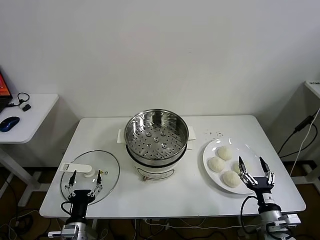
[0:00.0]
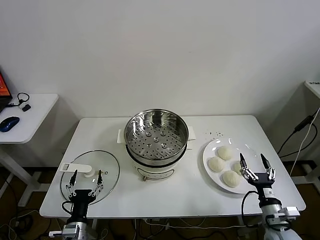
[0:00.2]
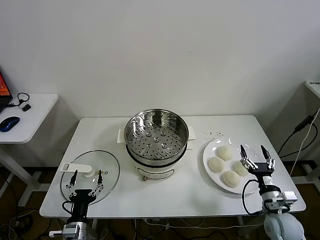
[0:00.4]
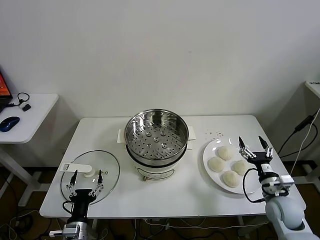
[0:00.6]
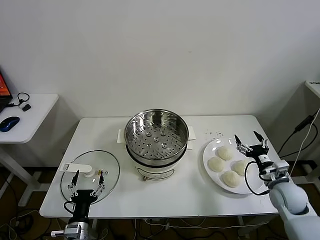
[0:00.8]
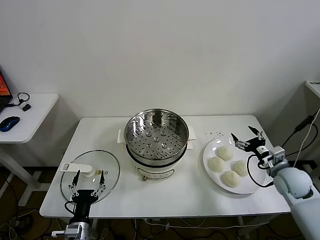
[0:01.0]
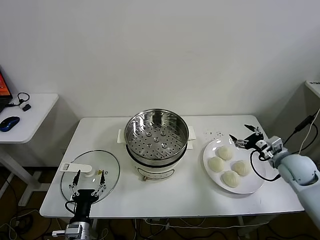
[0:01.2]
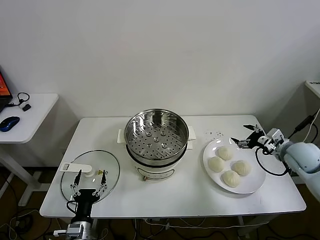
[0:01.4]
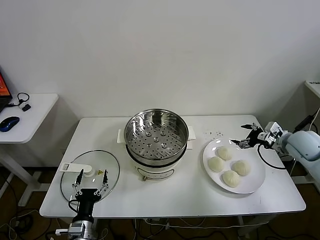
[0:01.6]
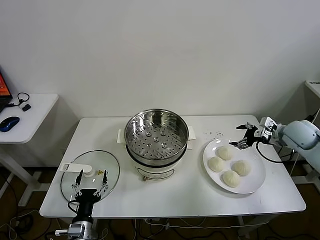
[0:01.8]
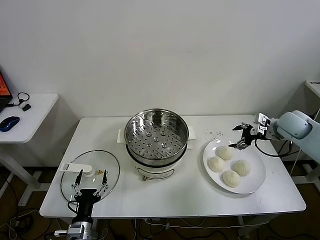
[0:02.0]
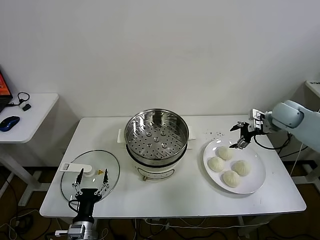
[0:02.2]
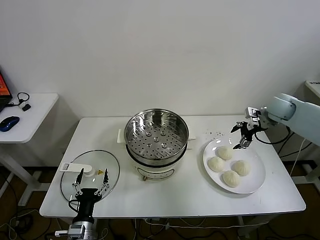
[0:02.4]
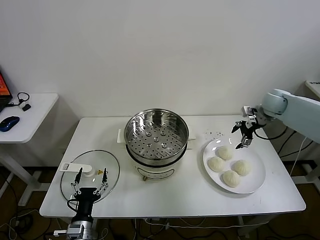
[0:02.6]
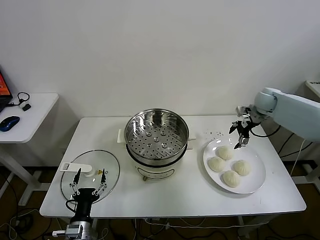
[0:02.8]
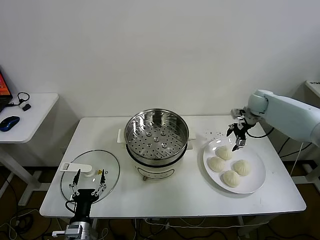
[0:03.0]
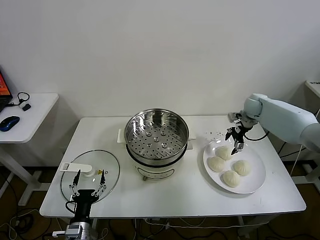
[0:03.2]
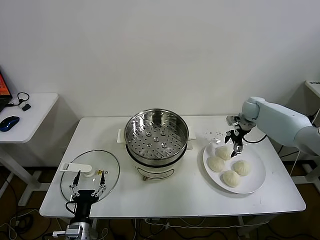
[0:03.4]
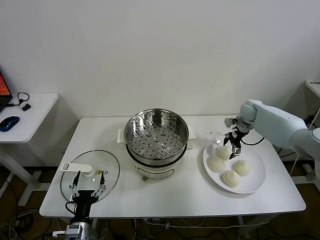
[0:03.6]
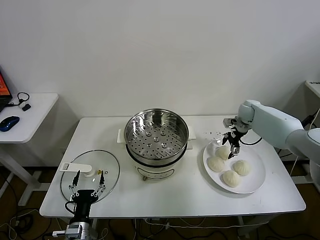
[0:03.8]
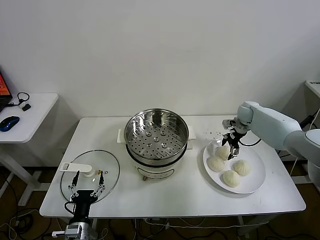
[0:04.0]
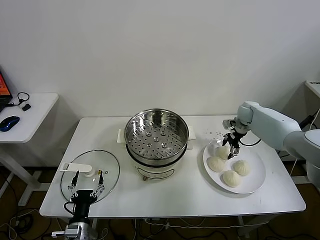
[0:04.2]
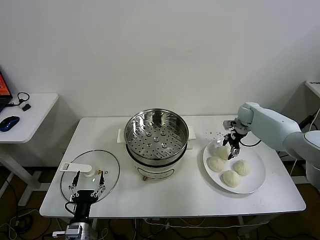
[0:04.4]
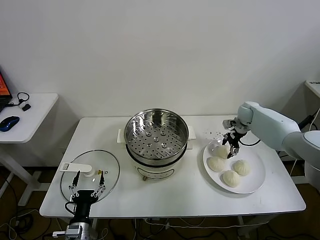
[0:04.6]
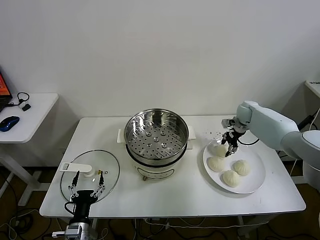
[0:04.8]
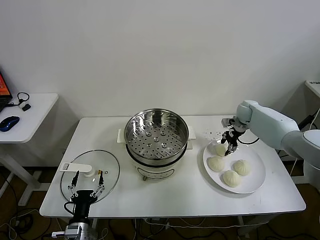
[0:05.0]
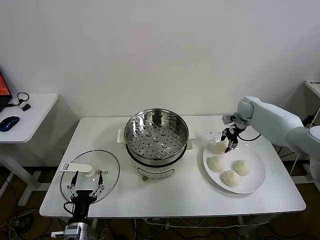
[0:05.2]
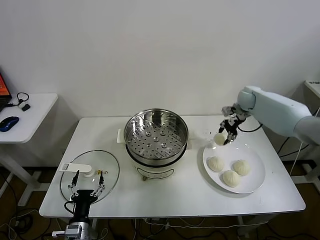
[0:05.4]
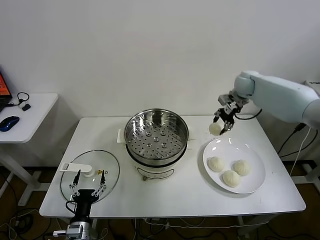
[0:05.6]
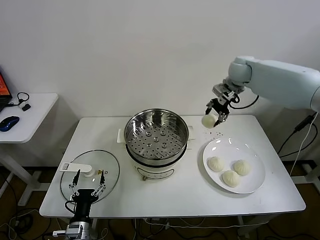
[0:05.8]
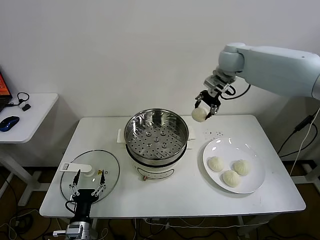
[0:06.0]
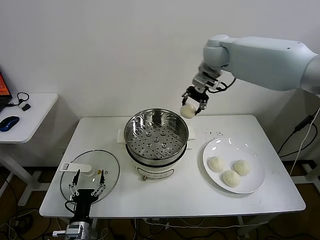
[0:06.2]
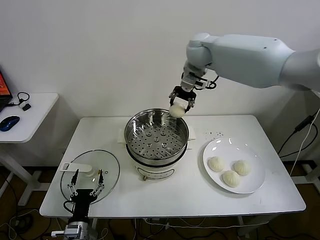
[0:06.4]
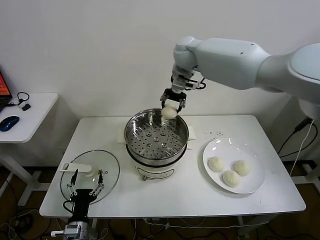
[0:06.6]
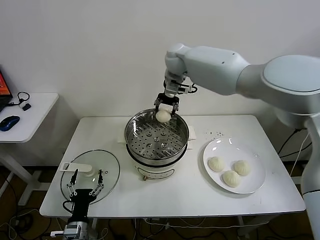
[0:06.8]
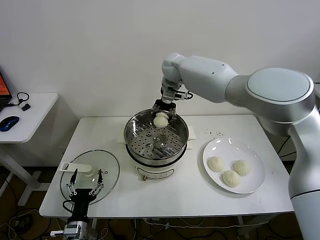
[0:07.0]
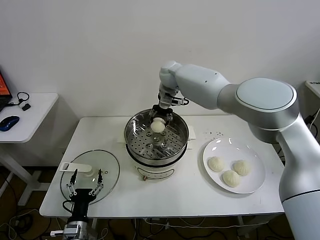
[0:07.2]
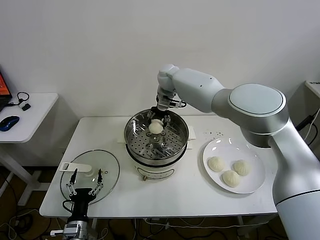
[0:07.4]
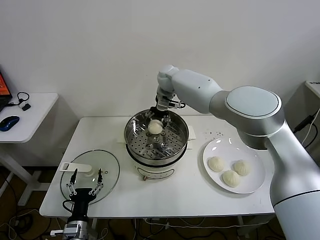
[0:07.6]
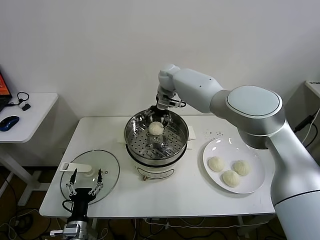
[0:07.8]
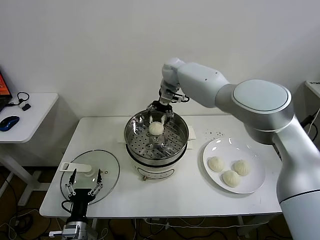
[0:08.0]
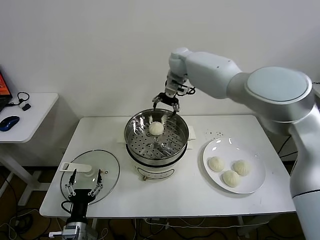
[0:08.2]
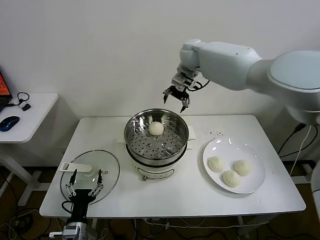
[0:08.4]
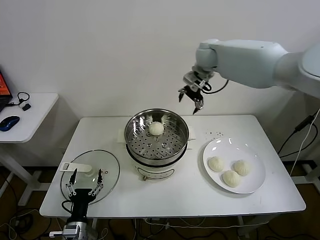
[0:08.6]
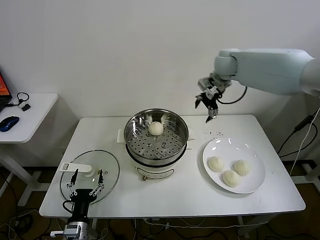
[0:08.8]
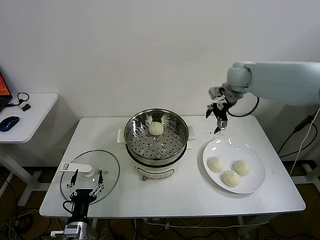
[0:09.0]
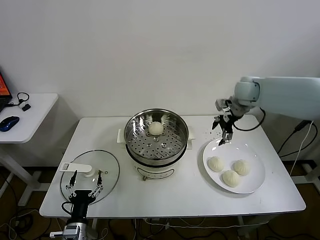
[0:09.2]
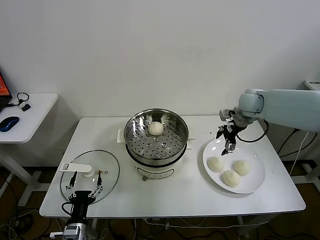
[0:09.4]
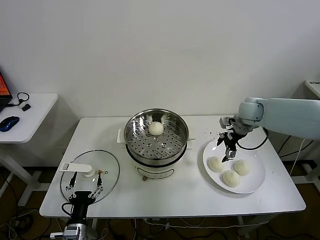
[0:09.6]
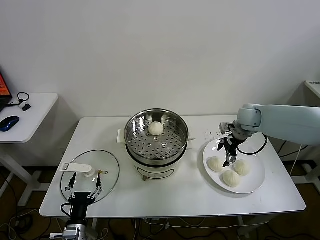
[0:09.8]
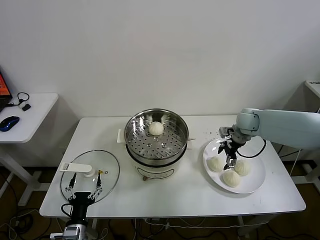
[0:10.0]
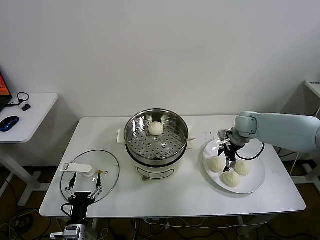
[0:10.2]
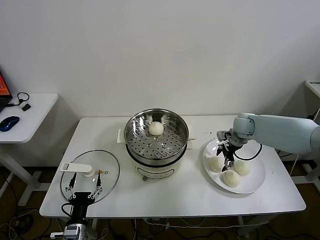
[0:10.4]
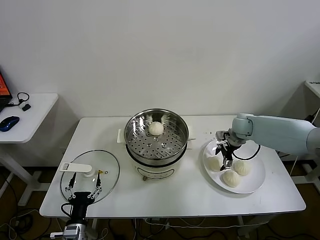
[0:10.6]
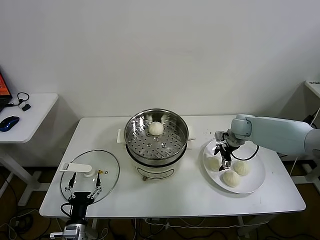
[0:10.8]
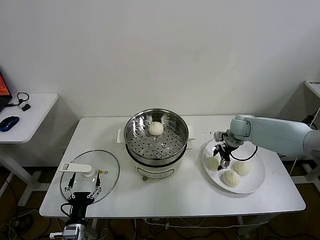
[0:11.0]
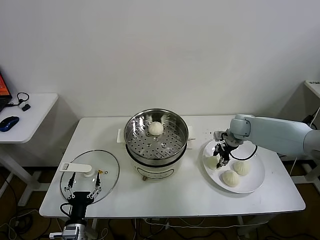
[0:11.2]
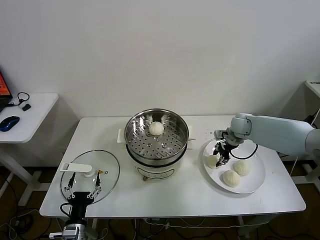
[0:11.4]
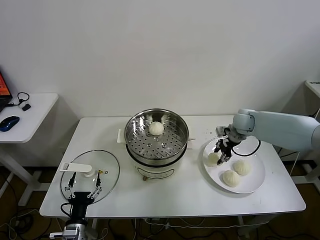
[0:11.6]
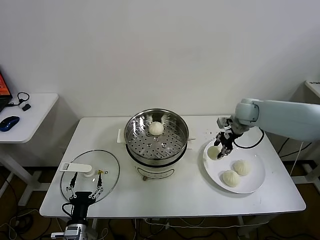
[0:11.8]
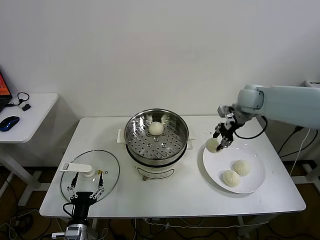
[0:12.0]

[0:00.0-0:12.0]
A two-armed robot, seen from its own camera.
Task of the whole recording: take steamed baozi put them in steamer.
Step, 0:00.0 to 0:04.6: Grasp the baozi in the plate with right gripper.
Step, 0:04.8 to 0:07.6: Place the baozi on the steamer with right gripper.
Step, 0:07.8 to 0:11.0: Grasp the baozi in the plate with right gripper.
0:01.6 to 0:03.0: The right gripper heads forward, covering about 20 cm.
0:03.0 to 0:04.4: The right gripper is displaced downward by some 5 cm.
0:04.4 to 0:06.0: The right gripper heads upward and to the left, covering some 30 cm, and closes its fingers.
0:06.0 to 0:07.6: The right gripper travels to the left and downward by about 20 cm, and opens.
0:07.6 to 0:09.0: The right gripper shifts some 25 cm to the right.
0:09.0 to 0:10.4: The right gripper moves downward, some 15 cm.
0:10.4 to 0:12.0: The right gripper moves upward, about 15 cm, and closes up.

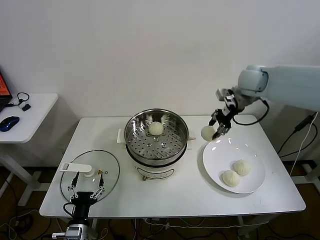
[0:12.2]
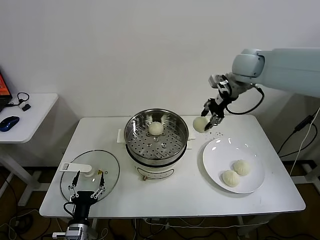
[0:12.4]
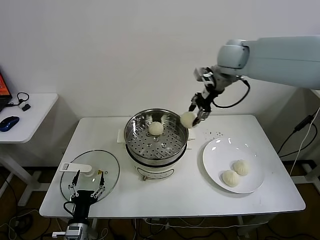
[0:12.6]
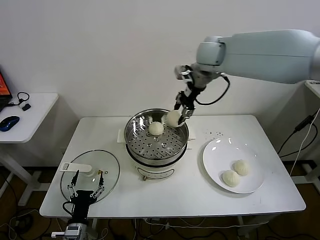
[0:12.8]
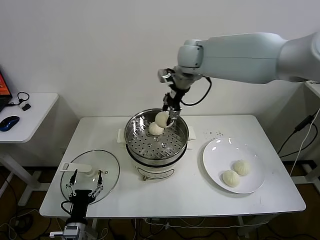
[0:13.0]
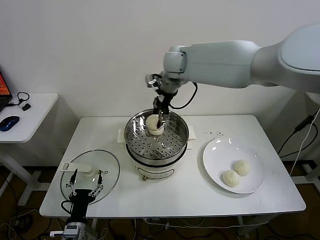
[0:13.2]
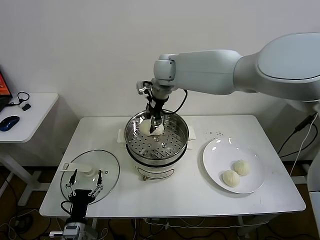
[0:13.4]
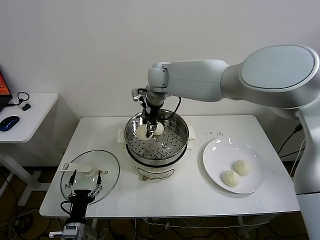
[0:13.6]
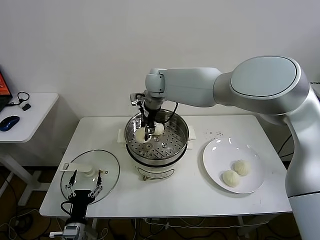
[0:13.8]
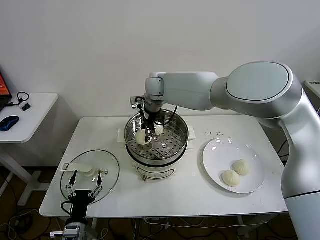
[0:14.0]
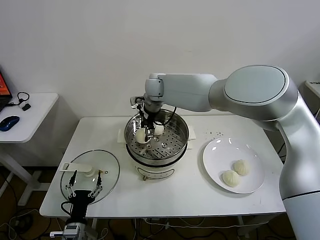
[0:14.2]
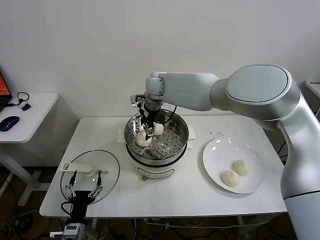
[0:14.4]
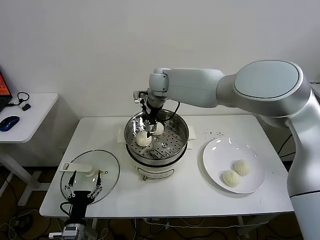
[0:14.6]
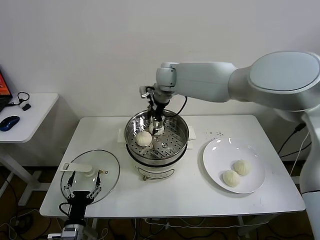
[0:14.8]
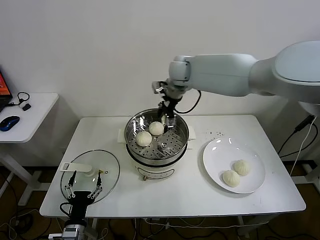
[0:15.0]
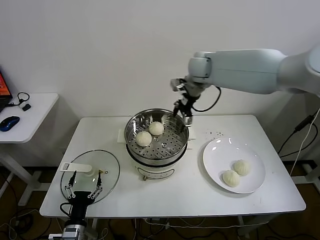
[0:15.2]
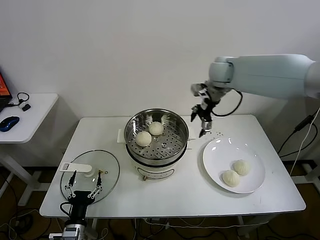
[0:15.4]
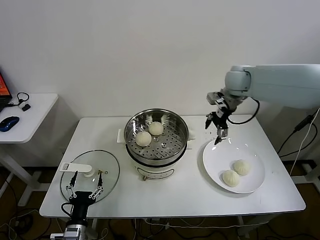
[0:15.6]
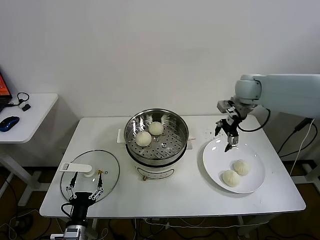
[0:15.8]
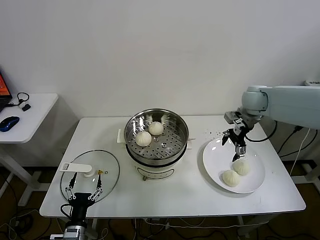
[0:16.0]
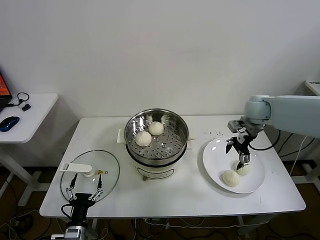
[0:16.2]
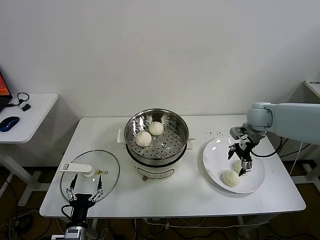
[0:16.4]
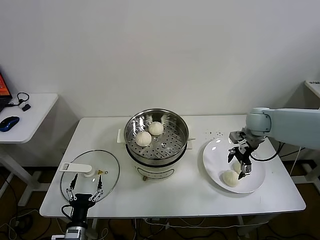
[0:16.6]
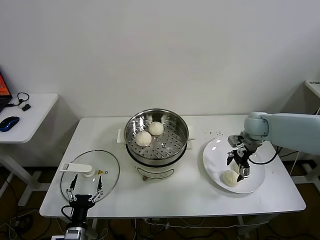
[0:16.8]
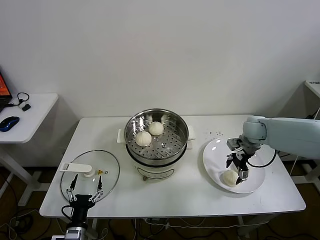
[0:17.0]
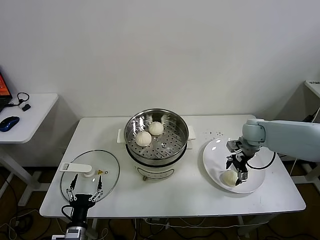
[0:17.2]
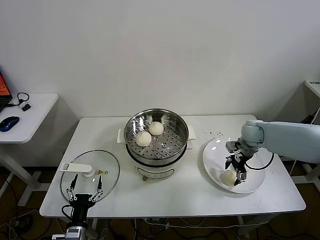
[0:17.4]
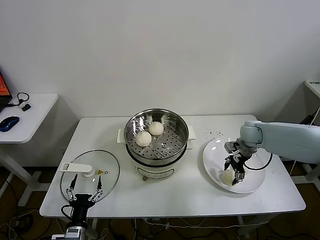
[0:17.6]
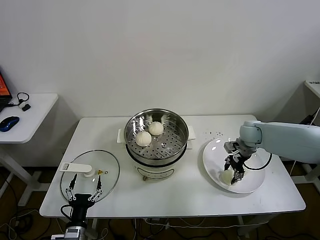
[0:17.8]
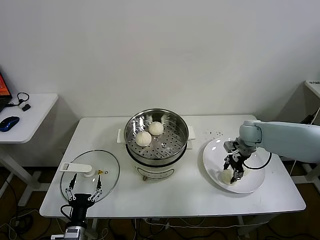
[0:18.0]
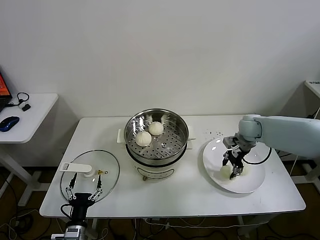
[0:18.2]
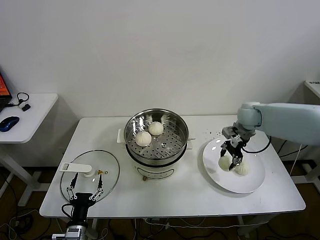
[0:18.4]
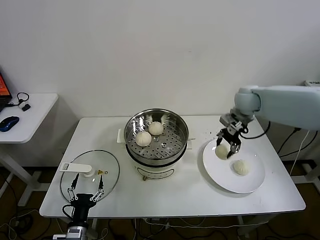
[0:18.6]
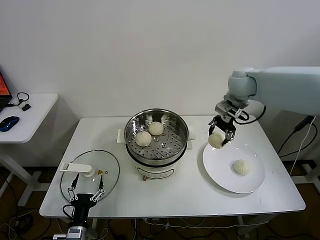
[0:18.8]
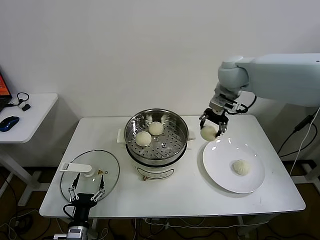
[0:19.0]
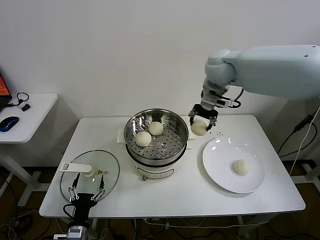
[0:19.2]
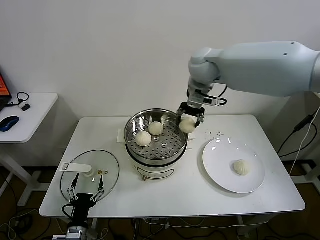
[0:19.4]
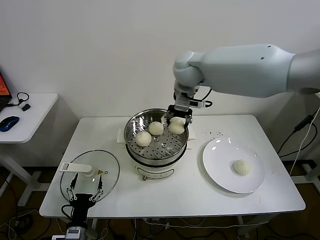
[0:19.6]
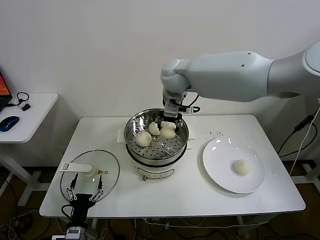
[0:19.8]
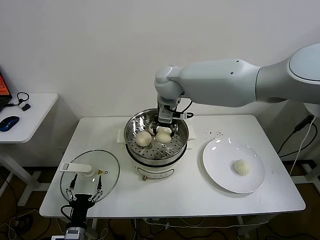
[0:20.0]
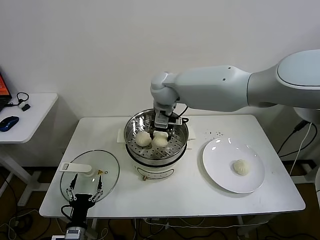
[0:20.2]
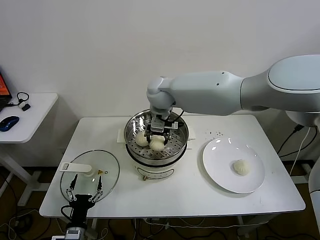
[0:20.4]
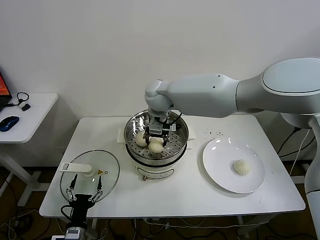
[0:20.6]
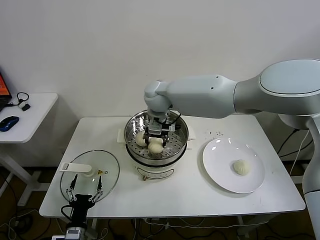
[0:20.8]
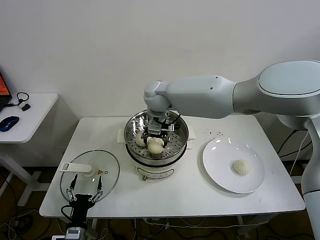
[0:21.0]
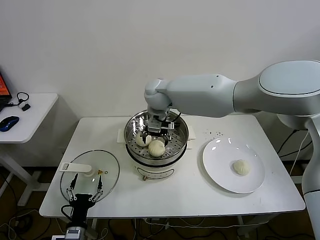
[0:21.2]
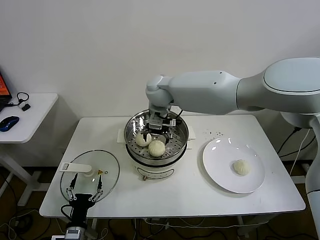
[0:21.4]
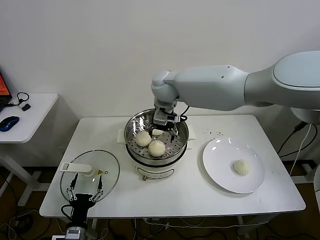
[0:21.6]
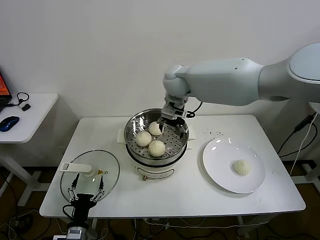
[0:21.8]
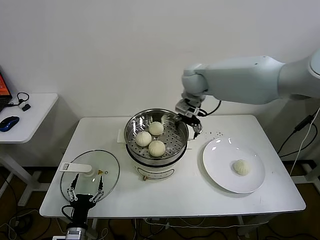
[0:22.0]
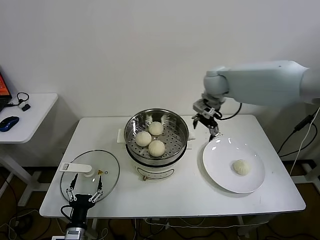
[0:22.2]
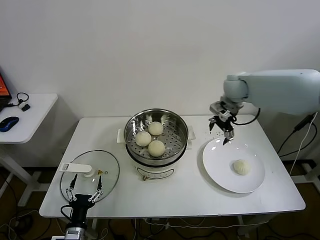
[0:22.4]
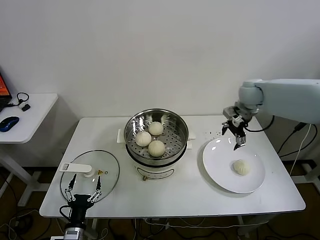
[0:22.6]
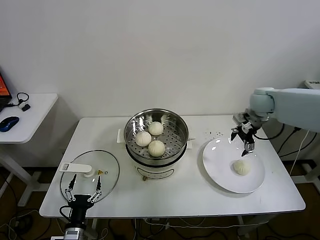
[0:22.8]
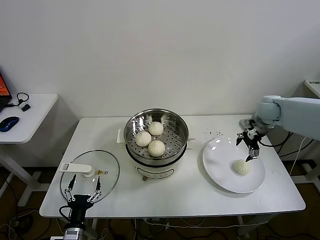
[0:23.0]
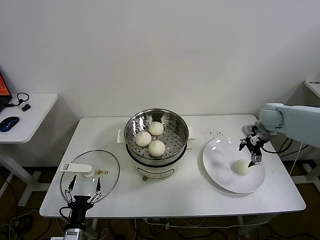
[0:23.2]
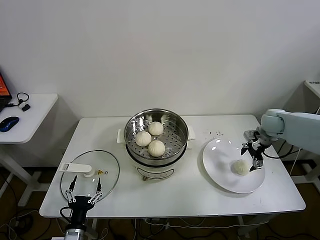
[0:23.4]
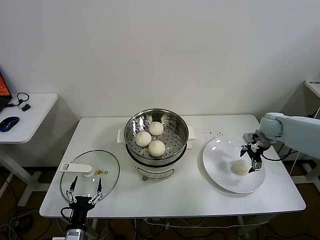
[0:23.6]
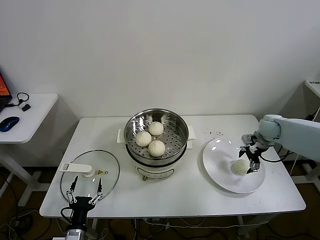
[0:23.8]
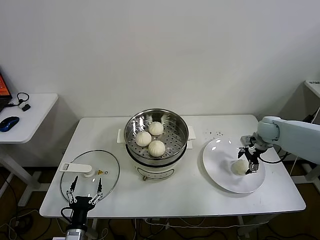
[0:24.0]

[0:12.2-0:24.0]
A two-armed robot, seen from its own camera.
Task of the whole recording: take steamed baozi put them in steamer.
Step, 0:12.2 to 0:14.4: Place the baozi on the steamer with right gripper.
Step, 0:14.6 to 0:17.8: Grasp the baozi in the plate with right gripper.
Step, 0:18.0 to 0:21.2: Place the baozi on the steamer with right gripper.
0:12.2 to 0:13.6: The right gripper heads to the left, covering about 30 cm.
0:13.6 to 0:15.2: The right gripper is displaced to the right by some 15 cm, and opens its fingers.
0:15.2 to 0:16.6: The right gripper travels to the right, downward and backward by approximately 25 cm.
0:16.6 to 0:18.2: The right gripper closes its fingers.
0:18.2 to 0:19.6: The right gripper heads to the left and upward, covering about 35 cm.
0:19.6 to 0:21.0: The right gripper moves downward and to the left, approximately 15 cm.
0:21.0 to 0:22.6: The right gripper travels to the right by some 30 cm, and opens its fingers.
0:22.6 to 0:24.0: The right gripper shifts roughly 20 cm downward and to the right.
